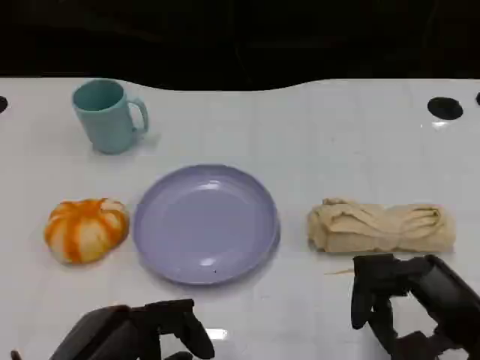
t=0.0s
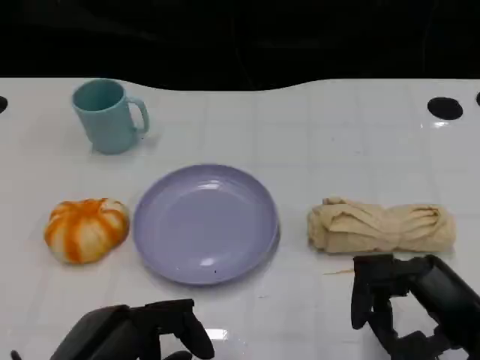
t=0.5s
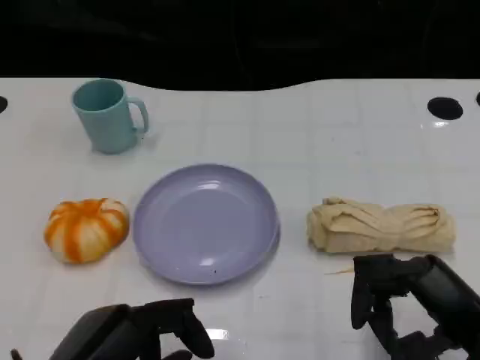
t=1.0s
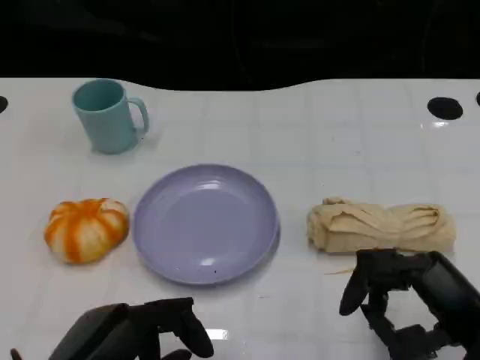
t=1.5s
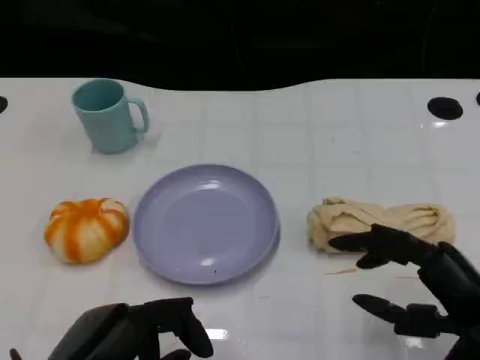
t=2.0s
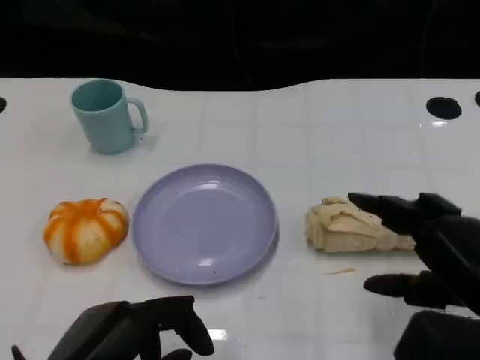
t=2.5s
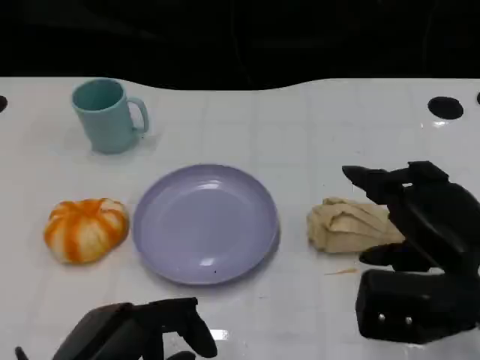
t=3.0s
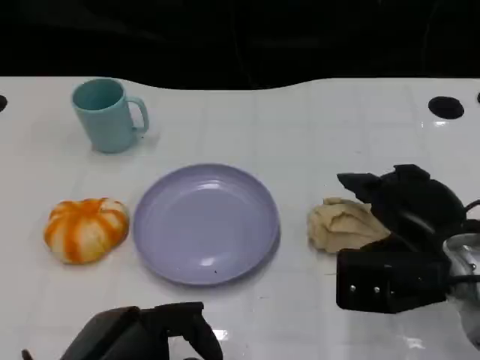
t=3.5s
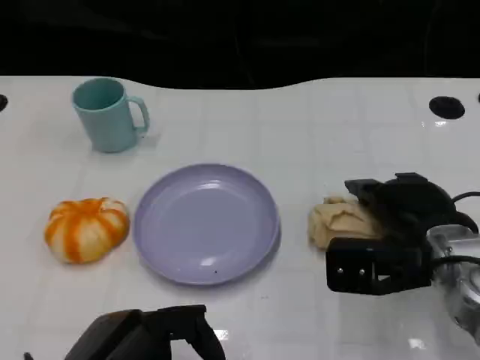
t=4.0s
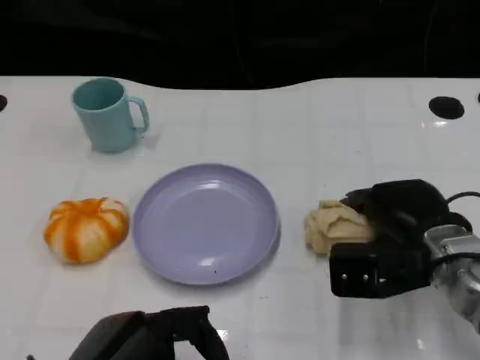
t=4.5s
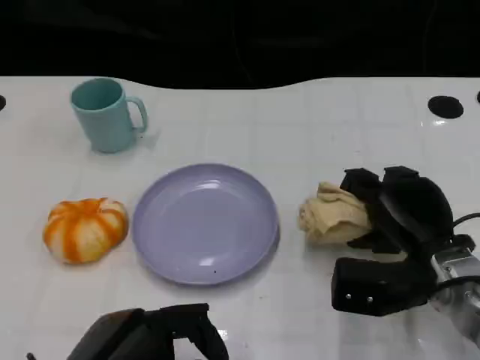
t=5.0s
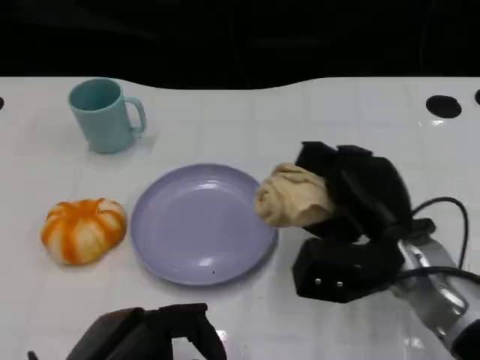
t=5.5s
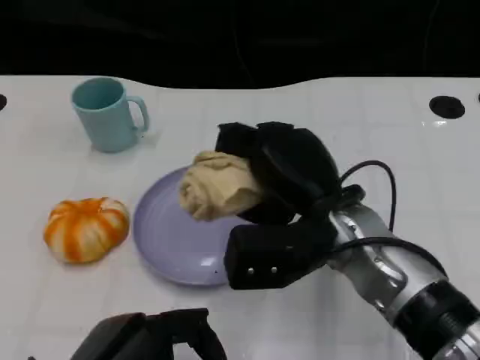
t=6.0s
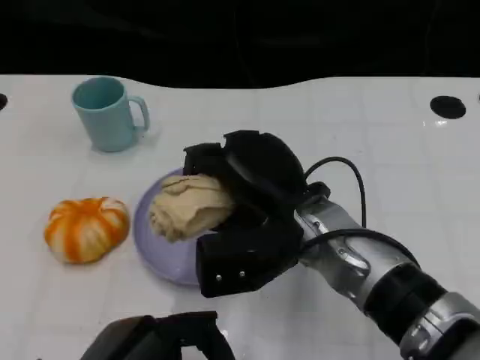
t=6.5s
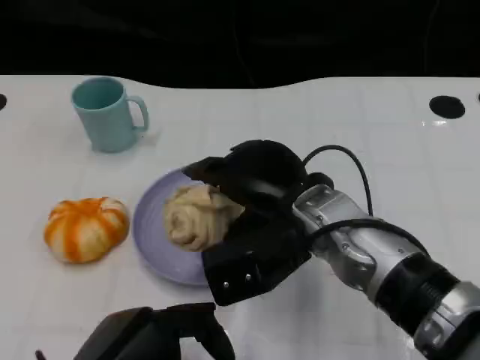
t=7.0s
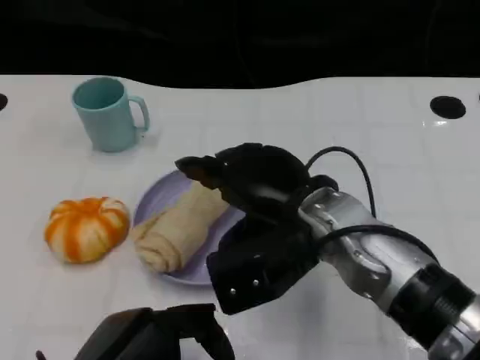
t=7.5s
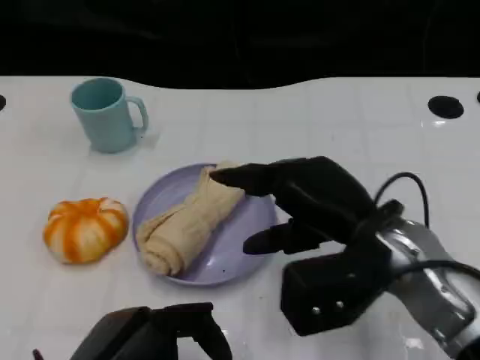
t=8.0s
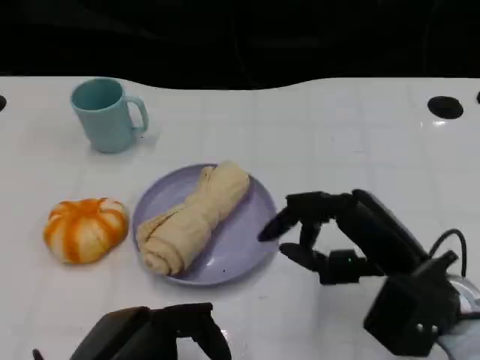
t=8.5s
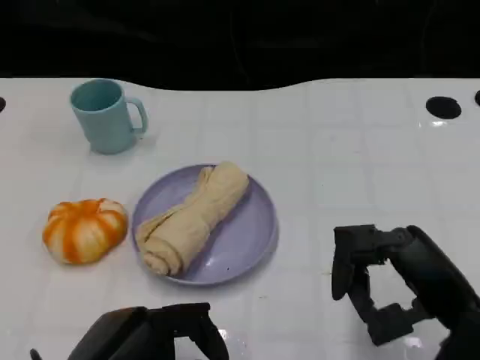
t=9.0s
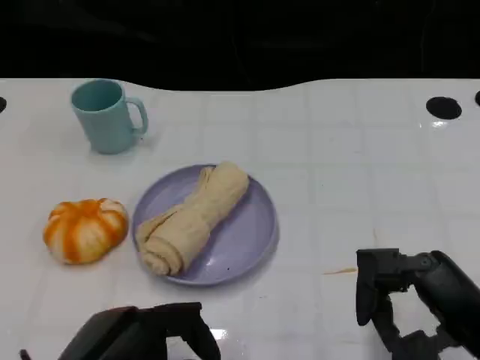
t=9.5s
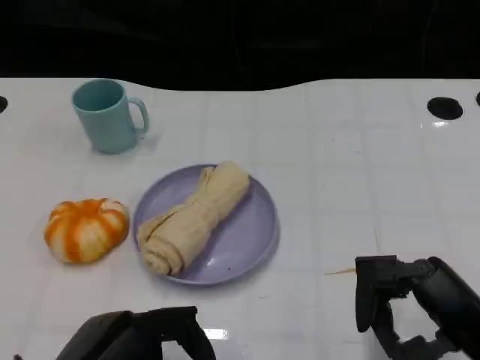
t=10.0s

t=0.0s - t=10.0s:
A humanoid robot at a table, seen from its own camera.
Task of the whole recording: Grasp the towel on the left side of the plate with the left hand and place it into the plate.
t=0.0s - t=2.0s: The hands make only small movements.
t=2.0s - t=4.0s: The right hand is displaced forward by approximately 10 cm.
t=4.0s - t=6.0s: The right hand is displaced to the left by about 10 cm.
t=6.0s - t=8.0s: The right hand is displaced to the right by roughly 5 cm.
t=8.0s - t=10.0s: The right hand is displaced to the right and backward by roughly 15 cm.

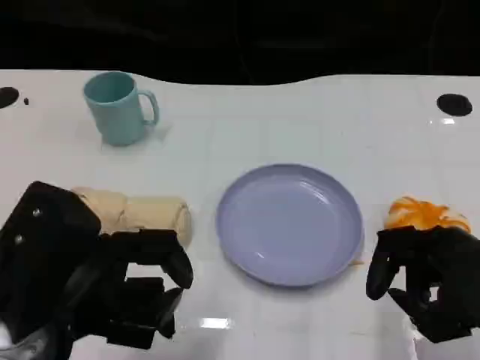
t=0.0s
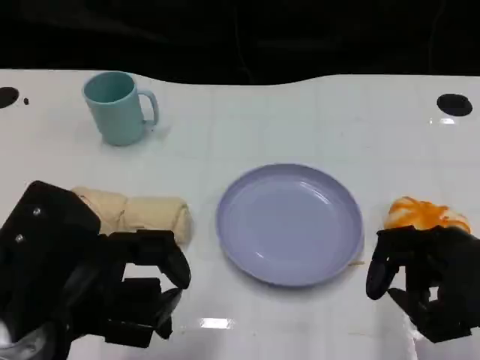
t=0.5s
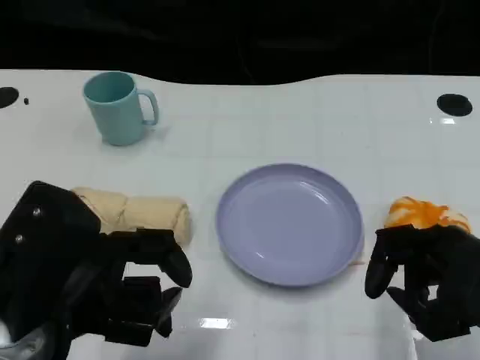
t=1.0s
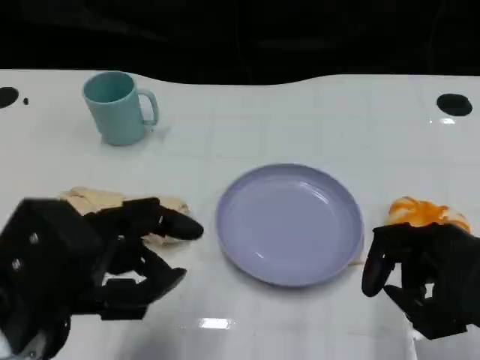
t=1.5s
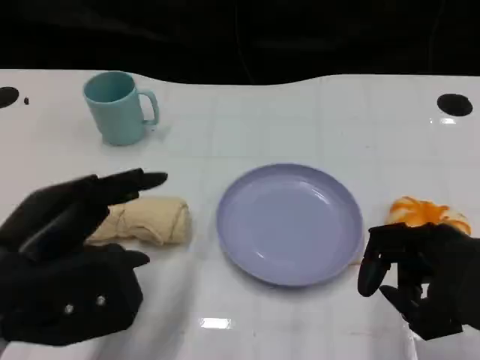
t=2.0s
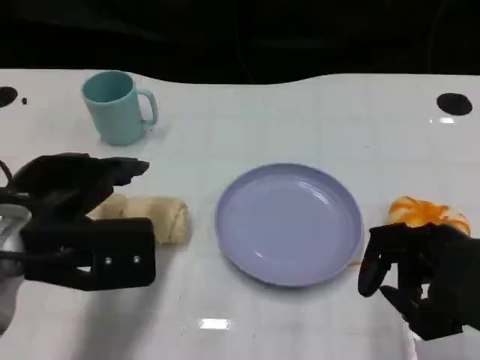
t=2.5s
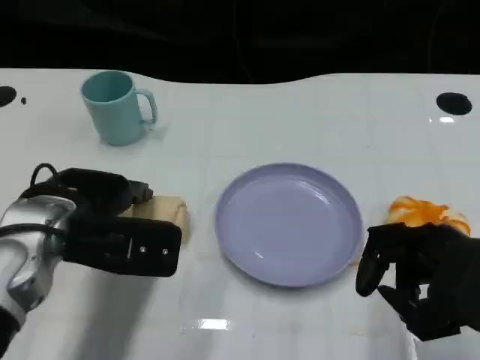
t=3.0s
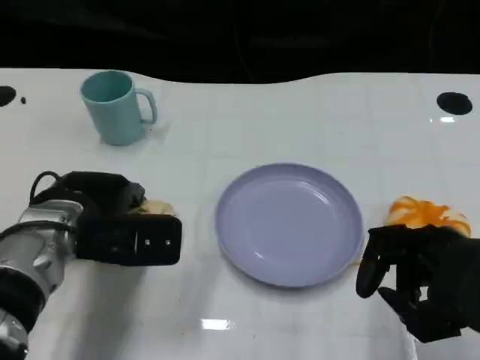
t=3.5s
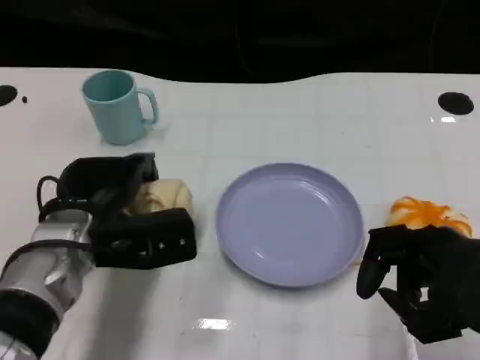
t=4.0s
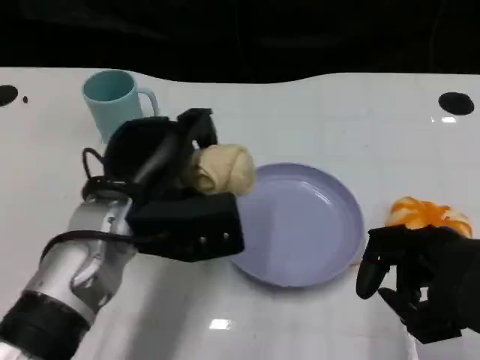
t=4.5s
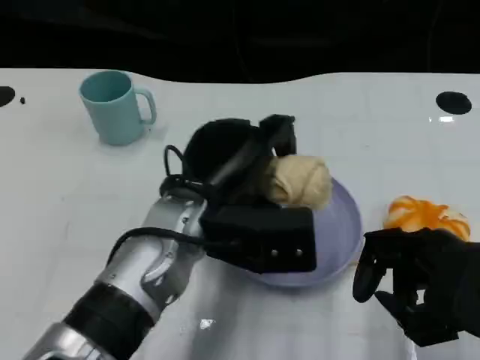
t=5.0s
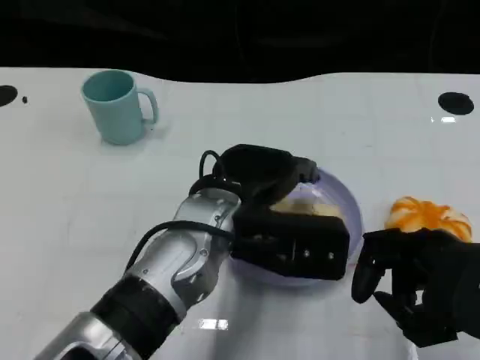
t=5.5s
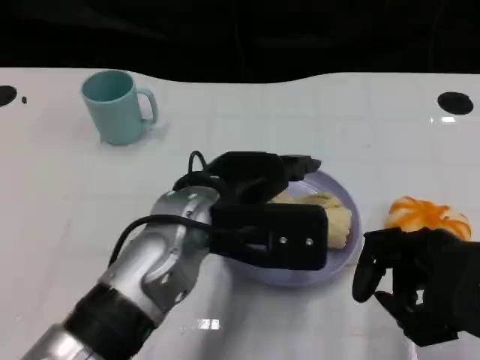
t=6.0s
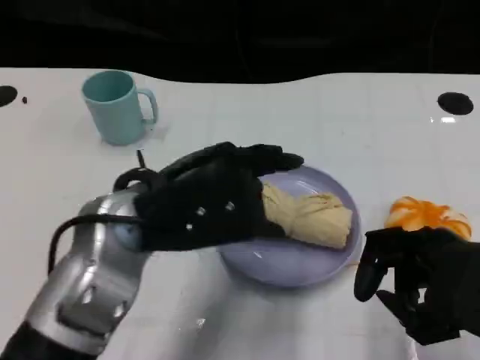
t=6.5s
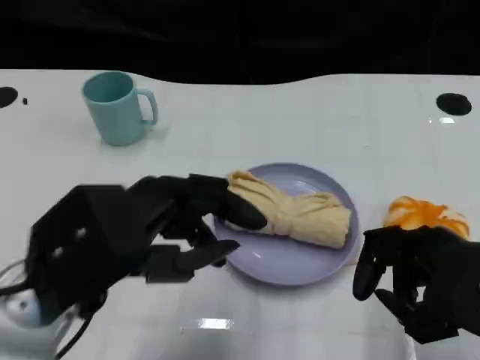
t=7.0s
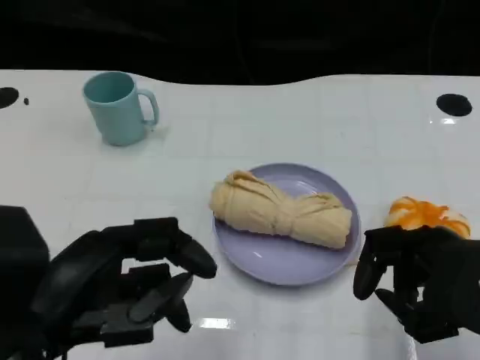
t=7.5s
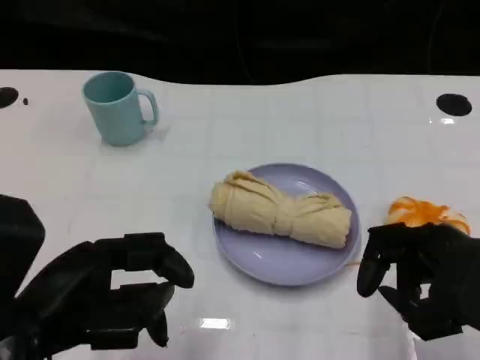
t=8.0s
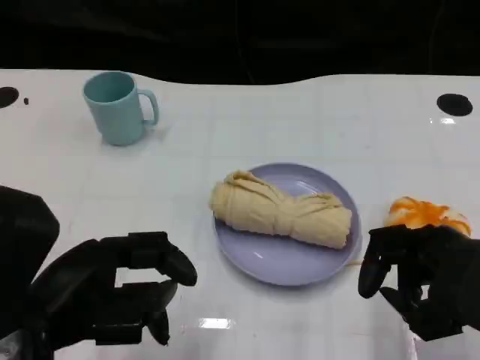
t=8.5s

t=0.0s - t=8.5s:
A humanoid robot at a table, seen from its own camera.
Task of the whole recording: Grasp the towel on the left side of the plate with the left hand and place it into the plate.
t=2.0s - t=4.0s: The left hand moves forward and downward, about 15 cm.
t=4.0s - t=6.5s: The left hand shifts about 10 cm upward, and moves approximately 15 cm to the right and comes back.
t=6.5s - t=8.5s: The left hand shifts roughly 10 cm to the left and backward.

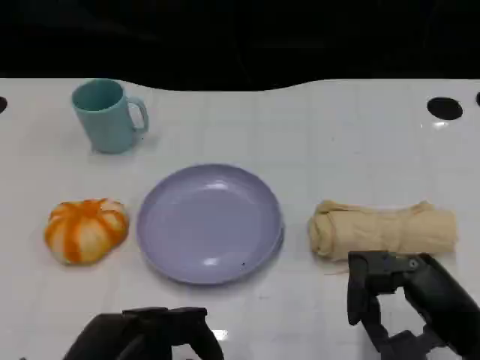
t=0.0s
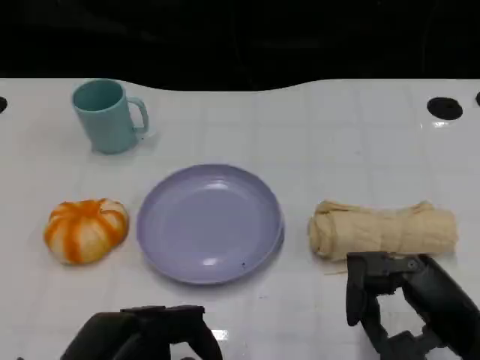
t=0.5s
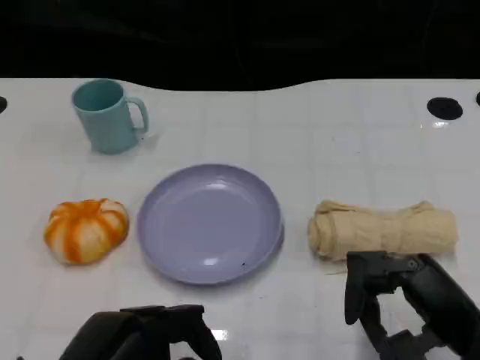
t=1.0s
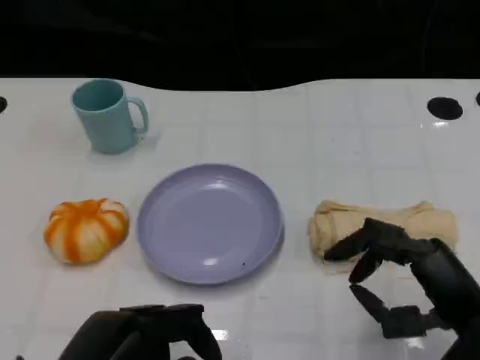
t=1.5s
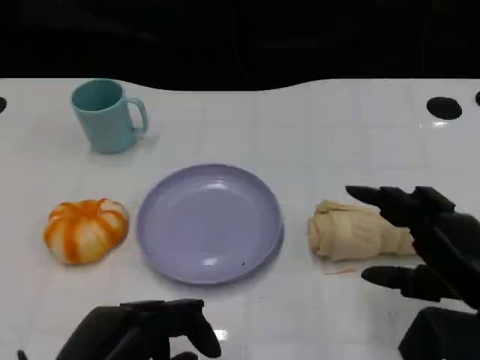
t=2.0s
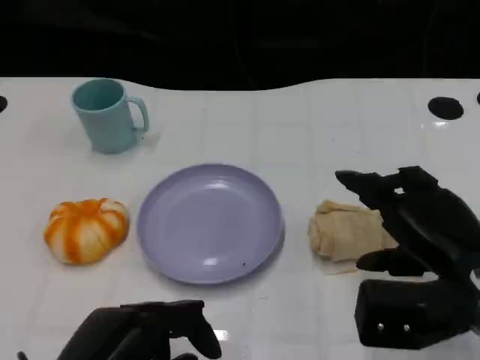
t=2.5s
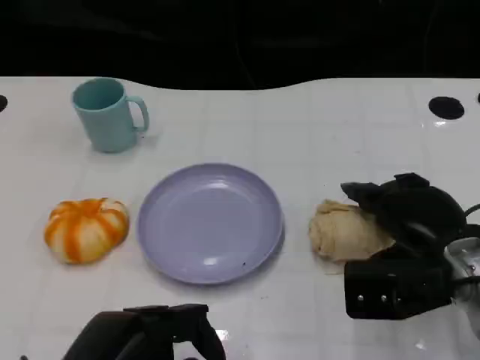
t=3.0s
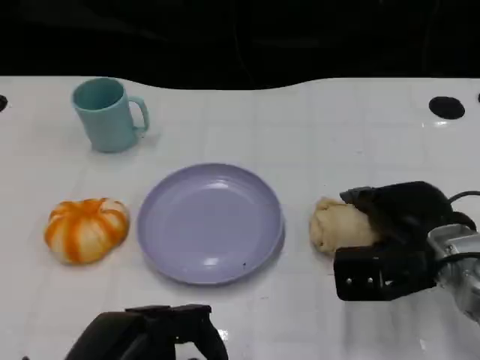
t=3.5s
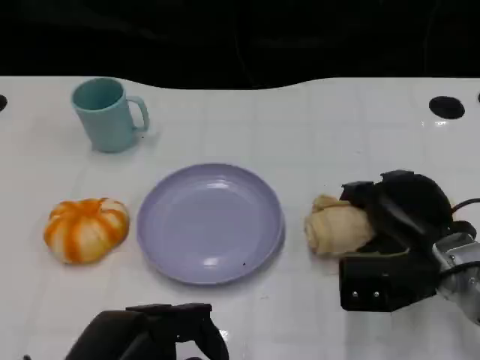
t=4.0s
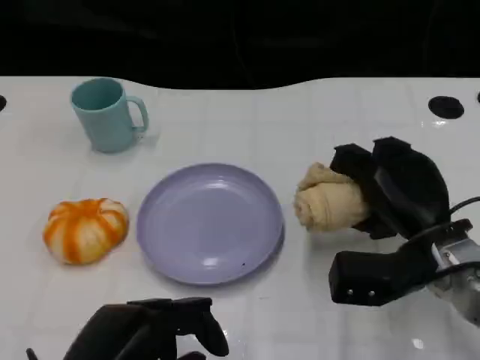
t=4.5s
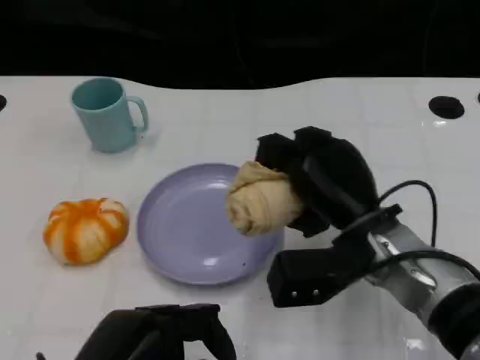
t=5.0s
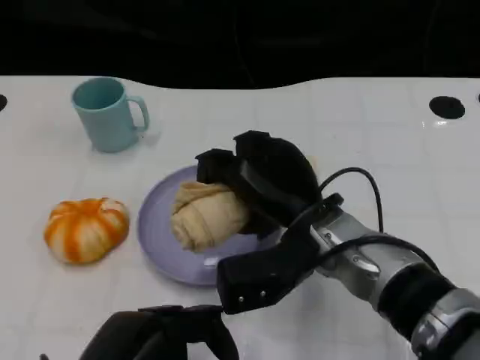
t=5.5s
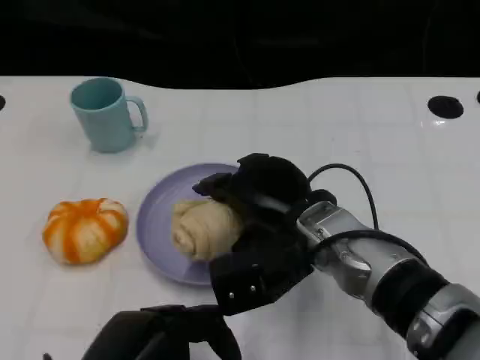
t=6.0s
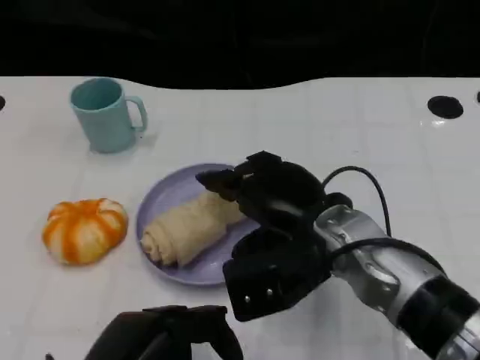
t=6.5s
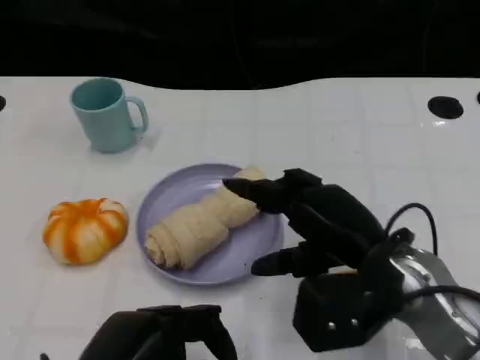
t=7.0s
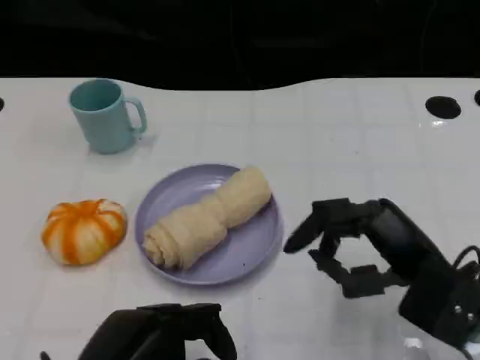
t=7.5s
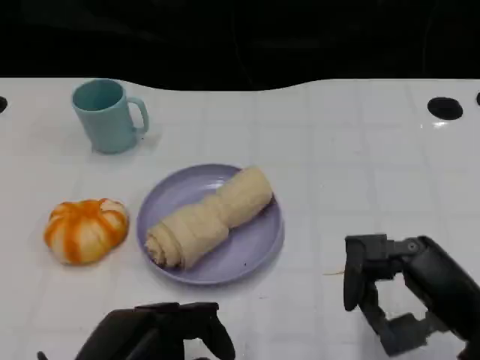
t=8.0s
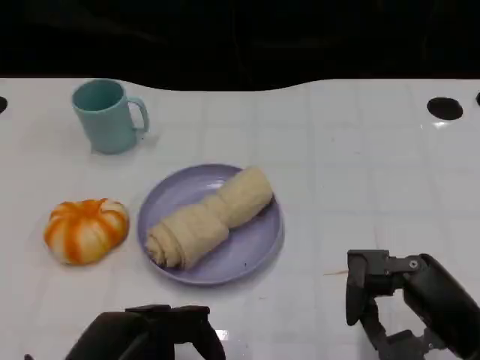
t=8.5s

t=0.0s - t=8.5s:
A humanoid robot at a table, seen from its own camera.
Task of the whole recording: Grasp the towel on the left side of the plate with the left hand and place it into the plate.
t=2.0s - t=4.0s: The right hand travels forward and downward by about 10 cm.
t=4.0s - t=6.5s: The right hand travels to the left and upward by roughly 15 cm.
t=6.5s - t=8.5s: The right hand shifts roughly 20 cm to the right and backward.
